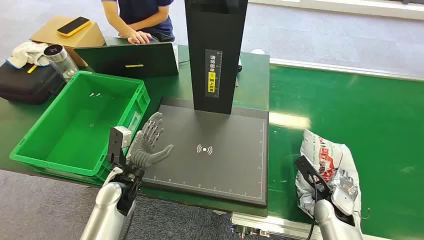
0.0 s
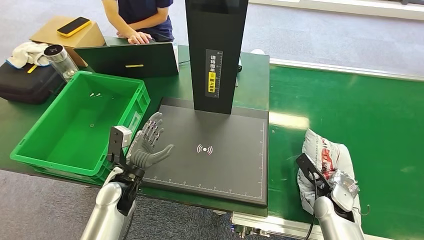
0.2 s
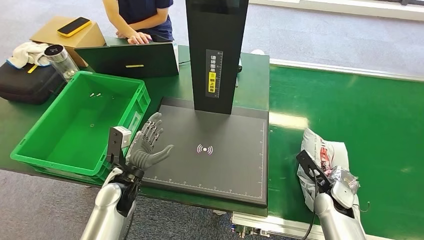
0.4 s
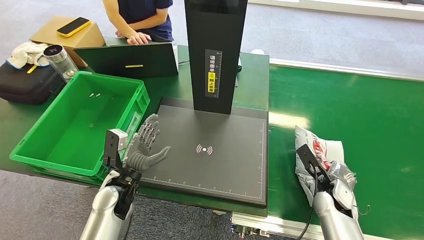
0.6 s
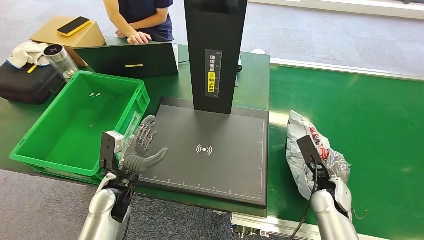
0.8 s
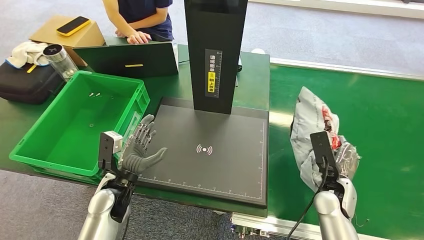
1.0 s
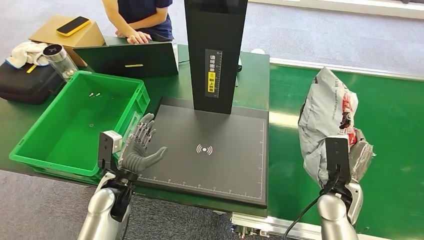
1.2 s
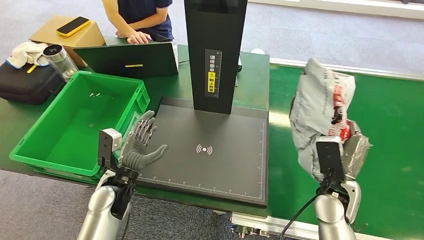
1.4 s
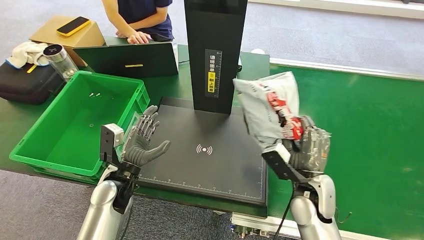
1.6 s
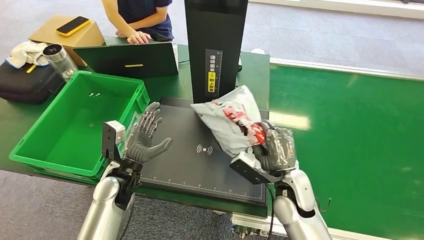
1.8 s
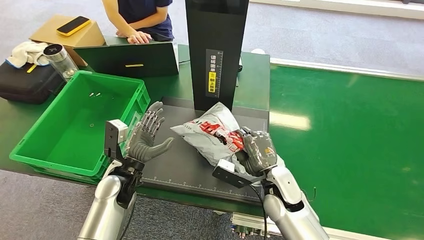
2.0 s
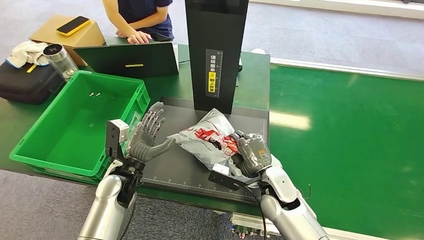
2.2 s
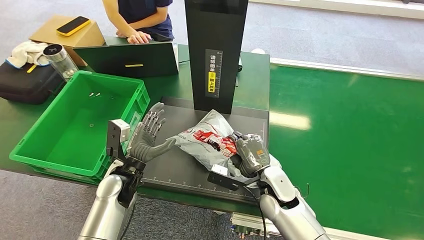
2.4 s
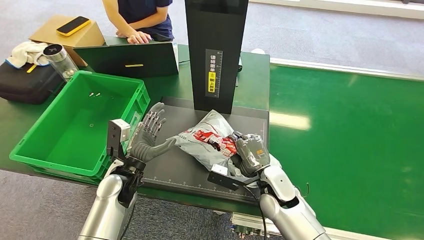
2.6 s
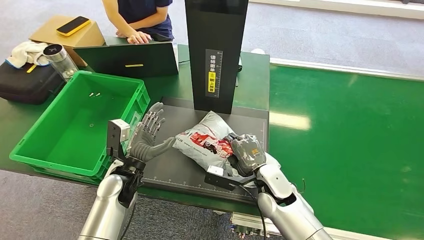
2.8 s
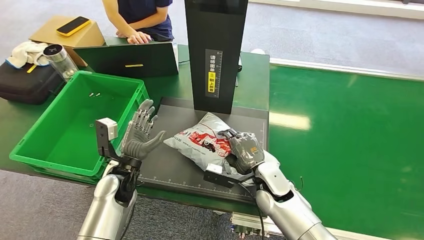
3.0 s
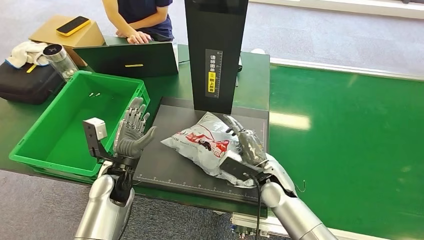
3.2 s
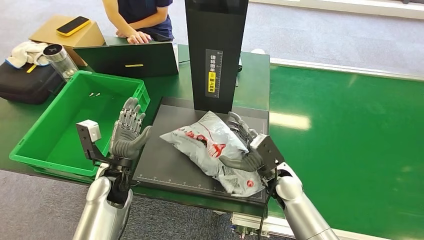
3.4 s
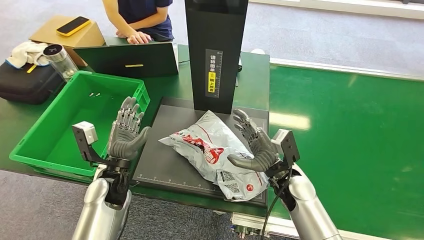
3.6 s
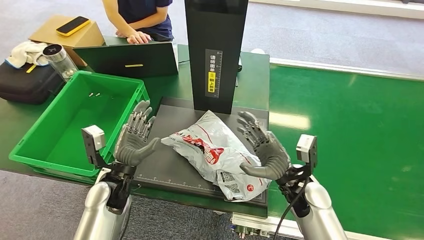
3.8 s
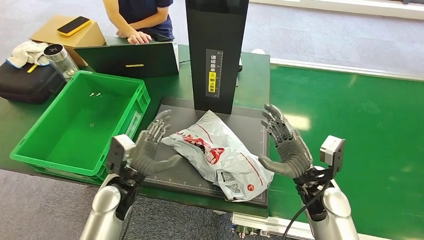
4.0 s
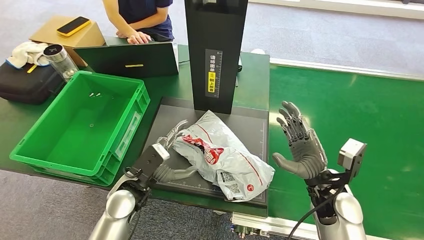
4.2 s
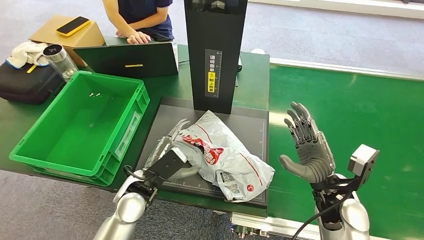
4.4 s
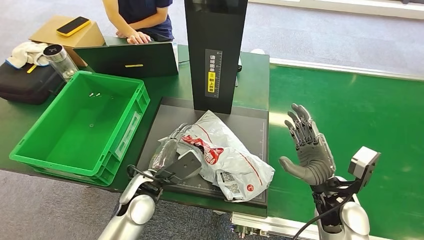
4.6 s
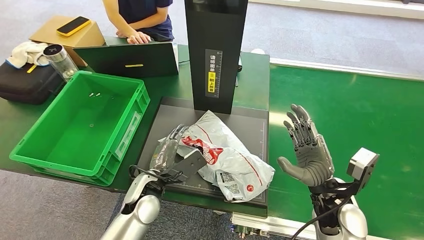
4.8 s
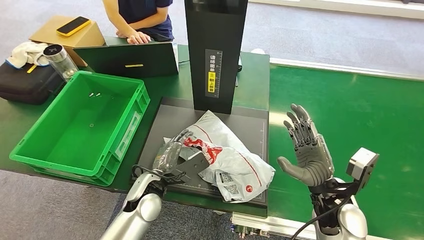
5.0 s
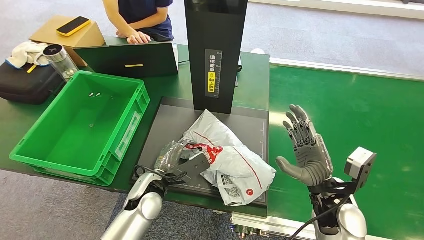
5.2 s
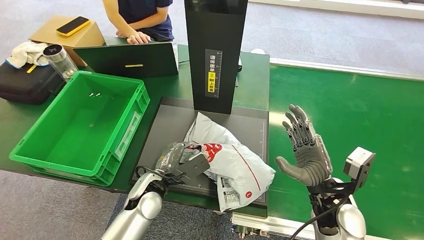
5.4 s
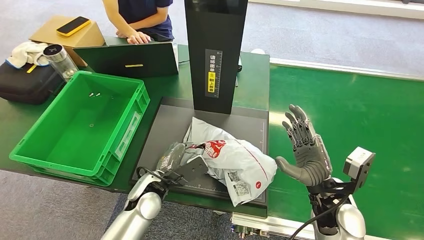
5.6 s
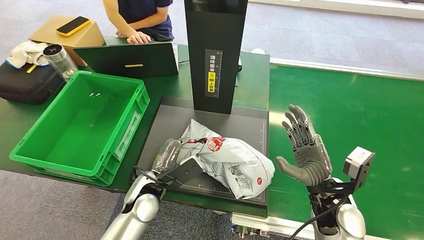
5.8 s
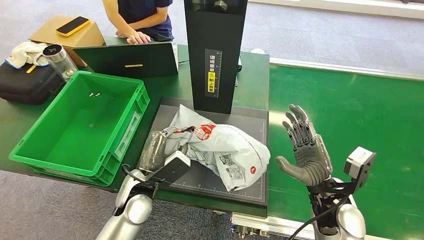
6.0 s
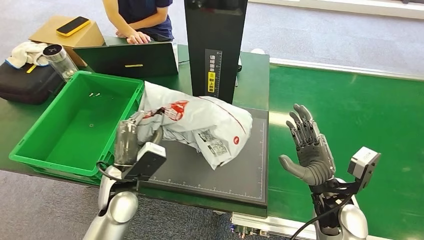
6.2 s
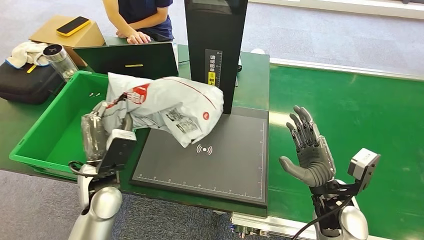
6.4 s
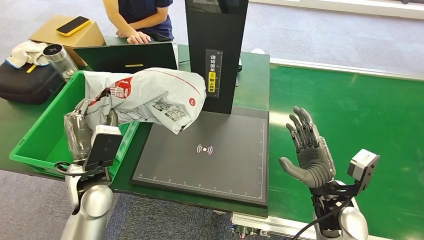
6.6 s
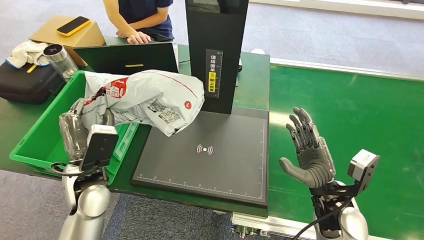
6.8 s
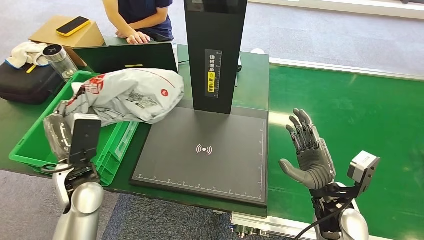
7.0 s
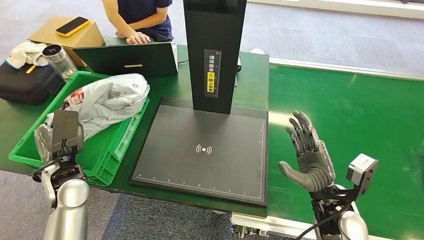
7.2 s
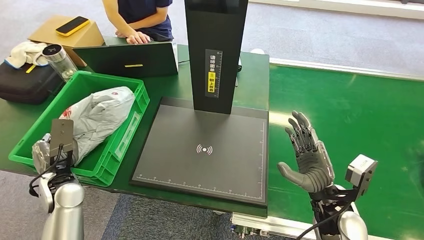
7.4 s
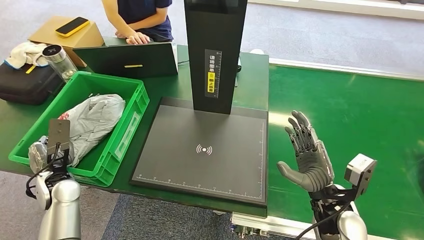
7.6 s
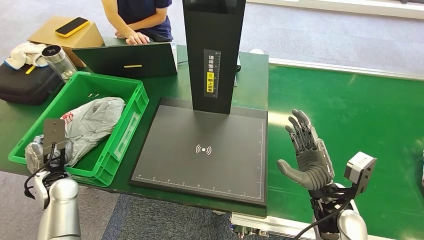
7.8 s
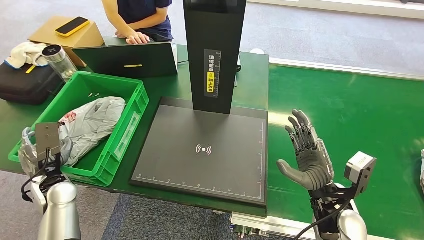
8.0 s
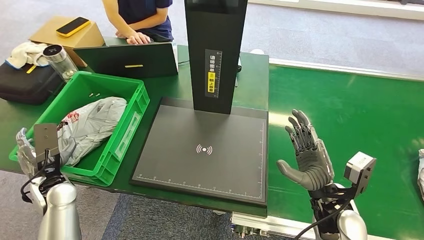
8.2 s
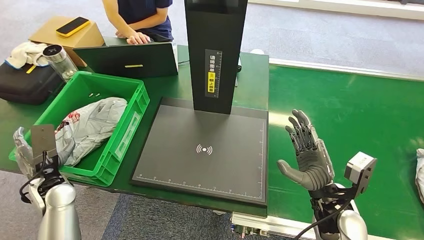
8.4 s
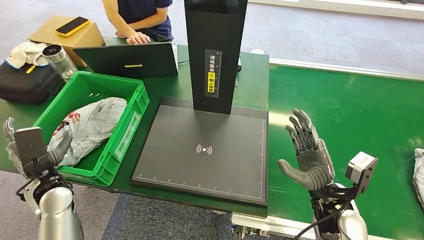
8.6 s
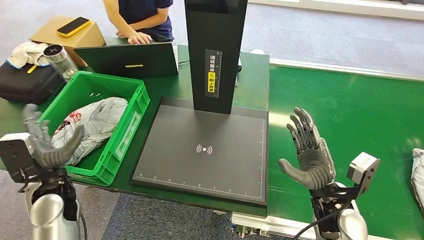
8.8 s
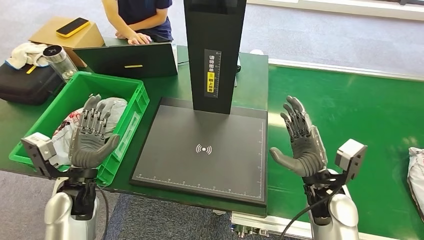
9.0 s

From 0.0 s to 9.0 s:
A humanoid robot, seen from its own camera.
Step, from 0.0 s to 1.0 s: Pick up the package from the conveyor belt.
Step, from 1.2 s to 2.8 s: Place the package onto the inbound machine.
Step, from 4.4 s to 7.0 s: Pick up the package from the inbound machine.
Step, from 7.2 s to 9.0 s: Place the package into the parcel locker.
From 1.6 s to 3.0 s: The right hand is displaced to the left by about 5 cm.
From 3.0 s to 4.4 s: The right hand moves to the right and backward, about 15 cm. The left hand ends up approximately 5 cm from where it was.
From 7.6 s to 9.0 s: The left hand moves to the right, some 10 cm.

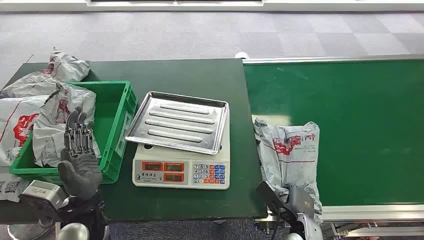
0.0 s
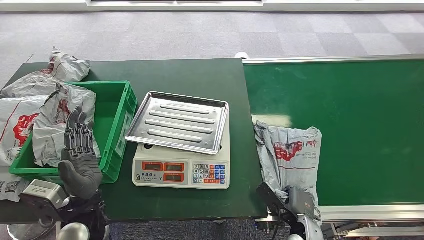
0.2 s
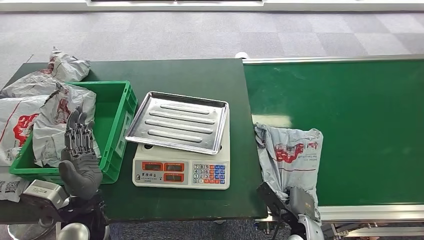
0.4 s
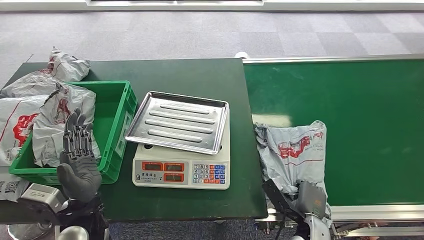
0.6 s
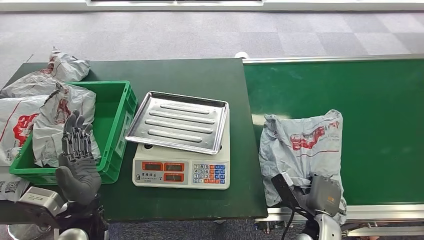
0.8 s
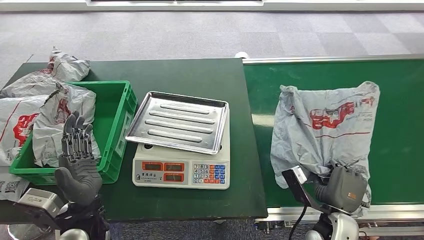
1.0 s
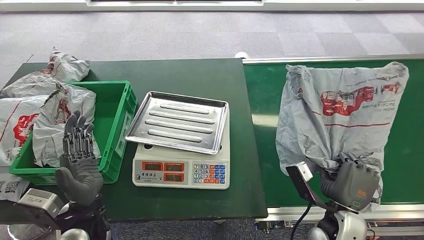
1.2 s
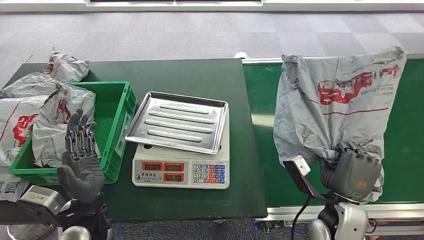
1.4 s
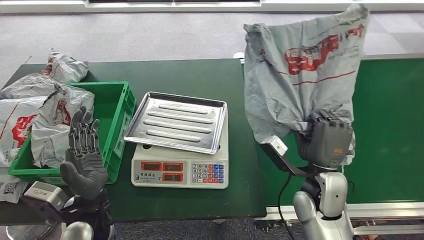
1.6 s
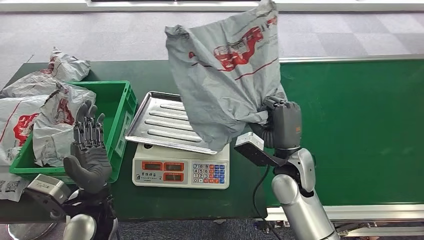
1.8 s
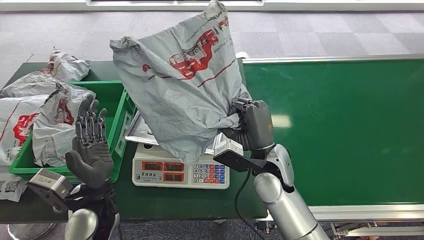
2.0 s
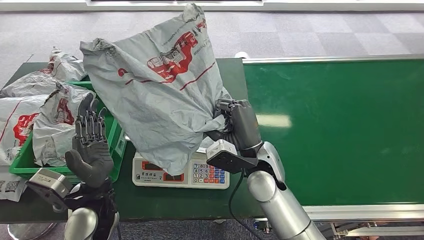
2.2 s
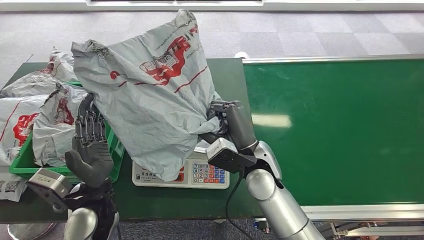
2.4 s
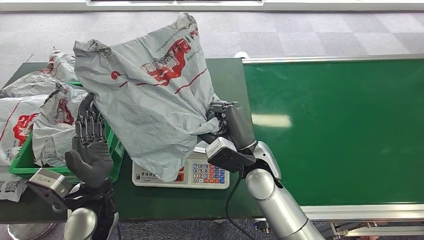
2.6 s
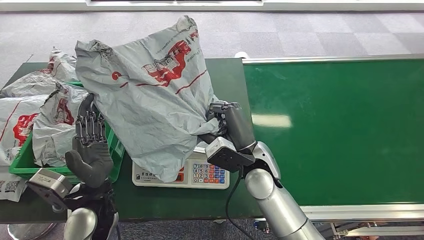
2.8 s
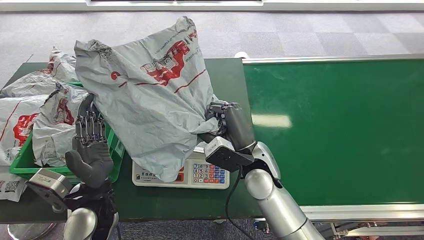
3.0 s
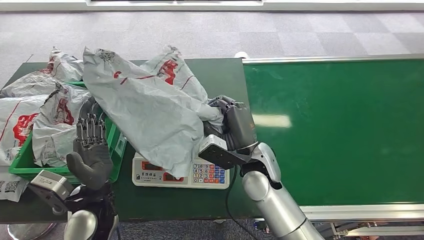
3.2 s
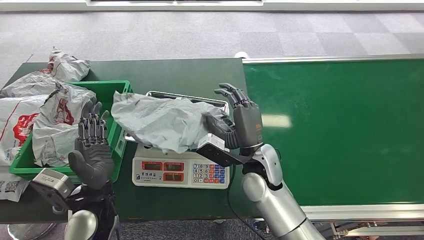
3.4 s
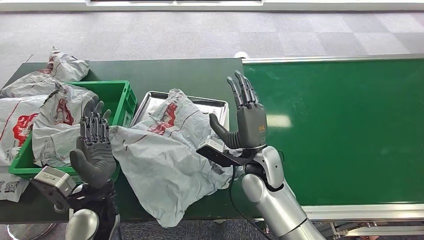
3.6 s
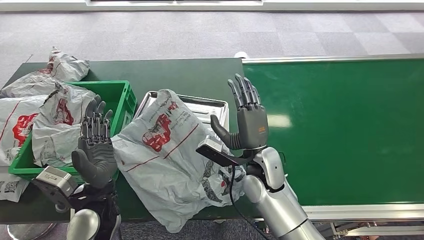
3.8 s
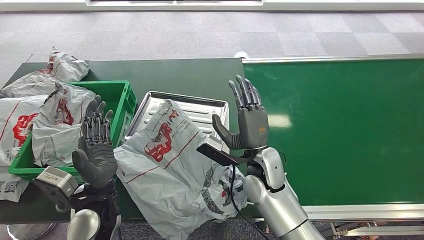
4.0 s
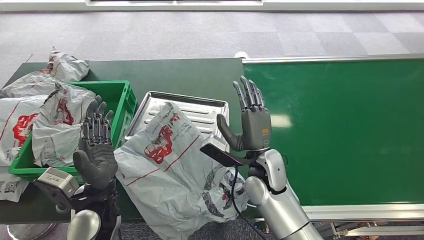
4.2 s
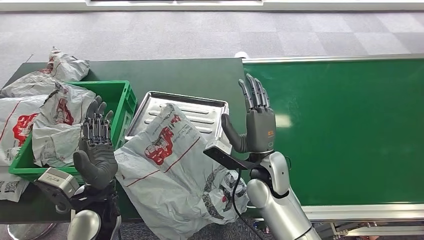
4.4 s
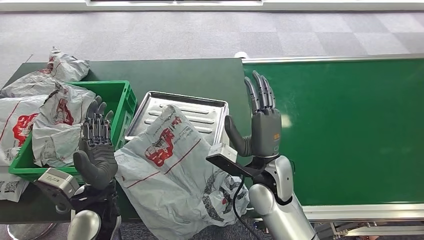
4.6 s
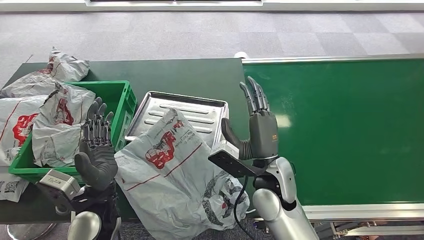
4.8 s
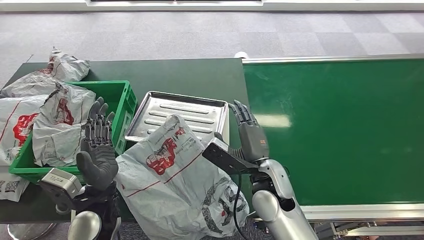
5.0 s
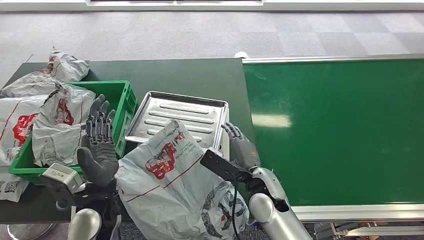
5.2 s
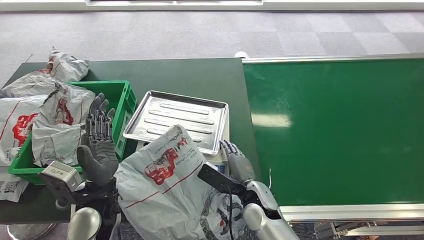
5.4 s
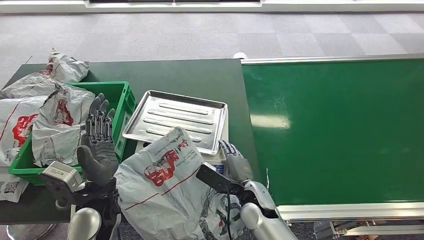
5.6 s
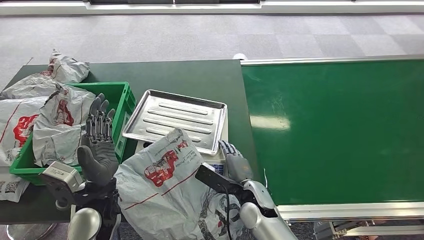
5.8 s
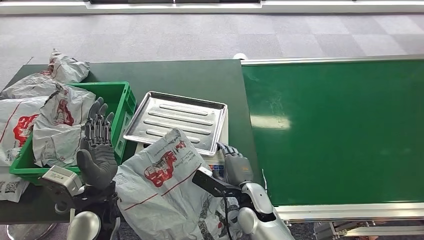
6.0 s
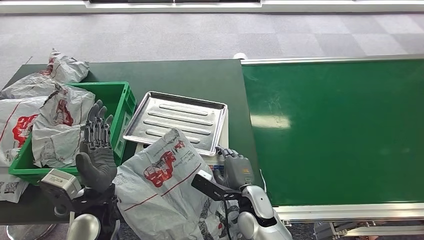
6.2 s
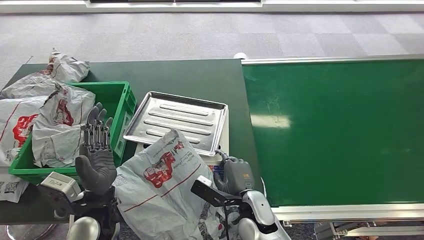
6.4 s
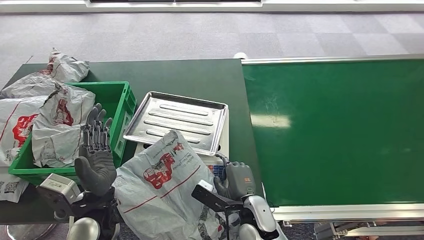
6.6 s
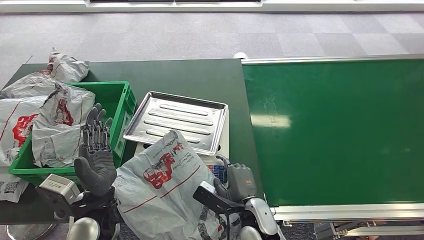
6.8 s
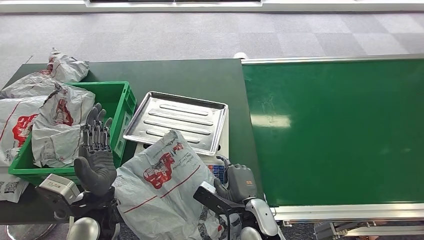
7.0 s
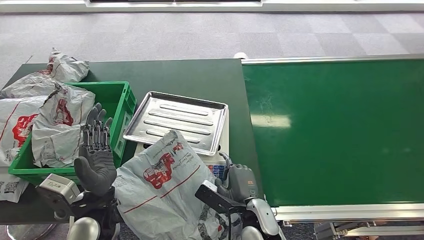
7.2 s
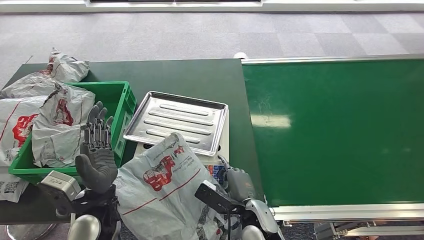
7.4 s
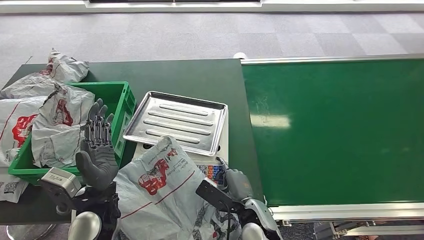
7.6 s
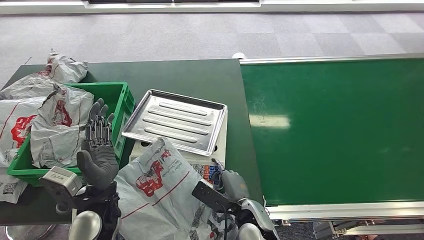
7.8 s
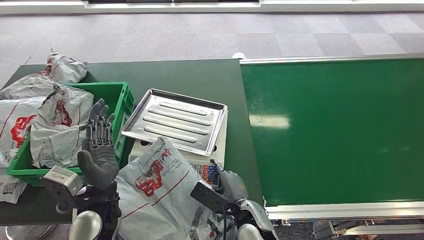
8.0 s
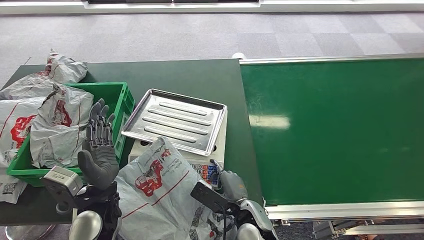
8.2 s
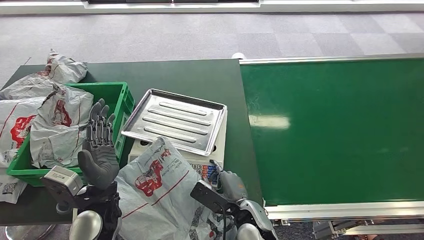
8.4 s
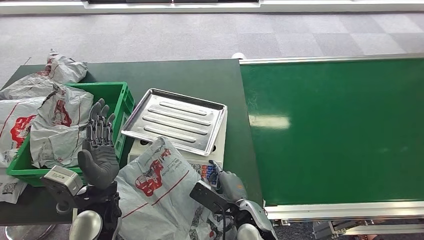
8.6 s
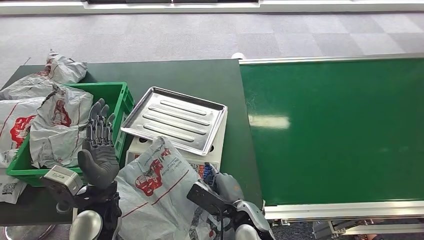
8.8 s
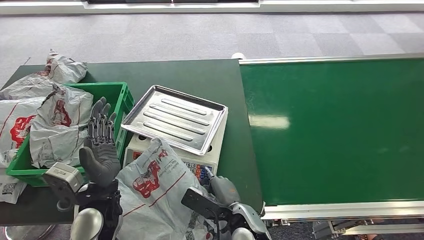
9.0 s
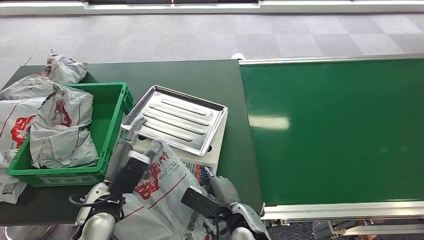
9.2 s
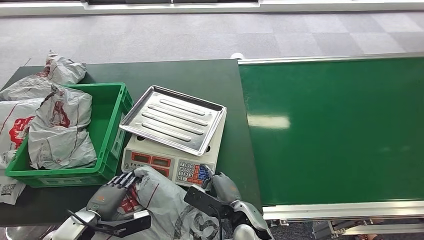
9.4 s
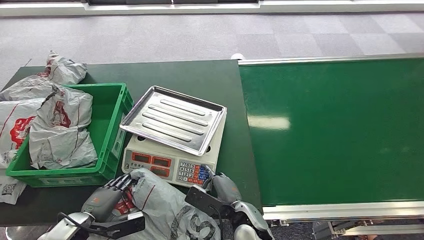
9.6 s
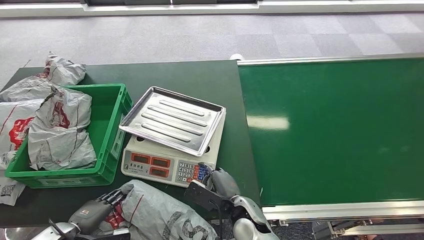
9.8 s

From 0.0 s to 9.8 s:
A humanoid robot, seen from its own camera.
Step, from 0.0 s to 1.4 s: Pick up the package from the conveyor belt.
Step, from 1.6 s to 5.0 s: Place the package onto the inbound machine.
From 5.6 s to 7.0 s: There are only small adjustments of the hands.
